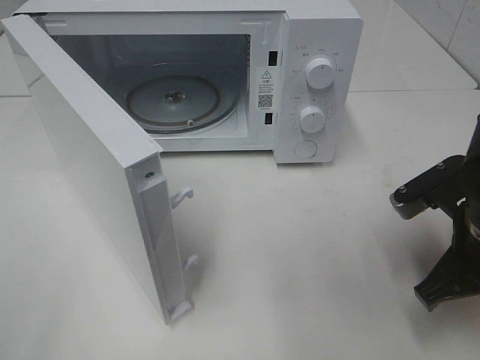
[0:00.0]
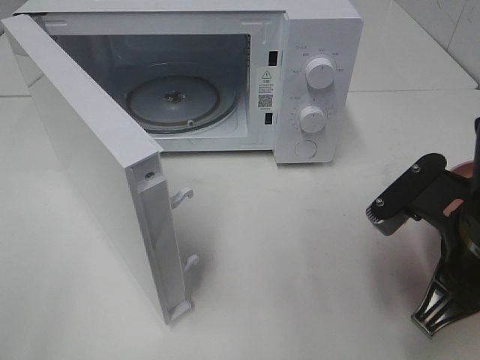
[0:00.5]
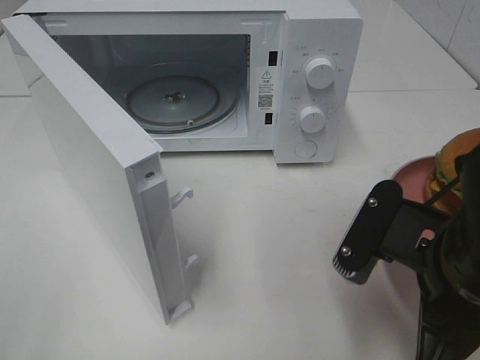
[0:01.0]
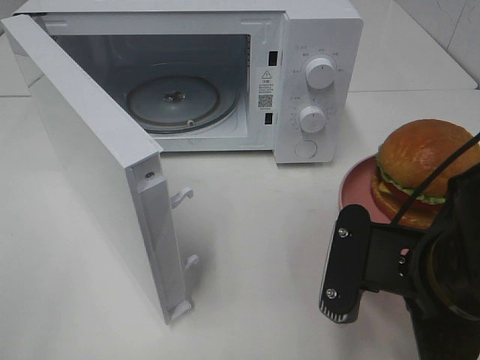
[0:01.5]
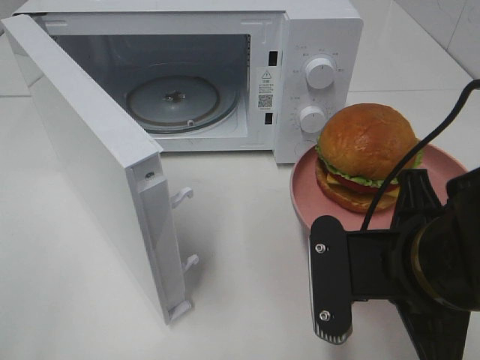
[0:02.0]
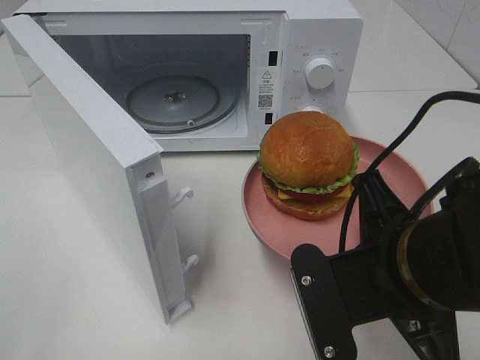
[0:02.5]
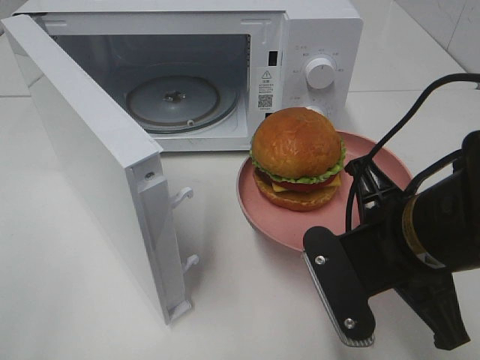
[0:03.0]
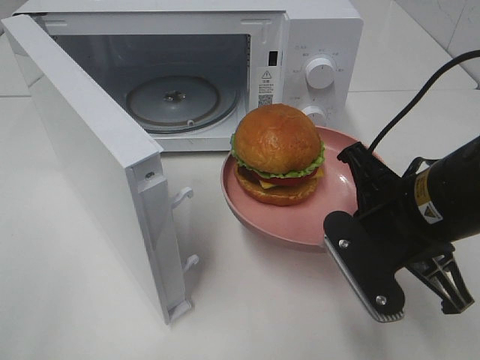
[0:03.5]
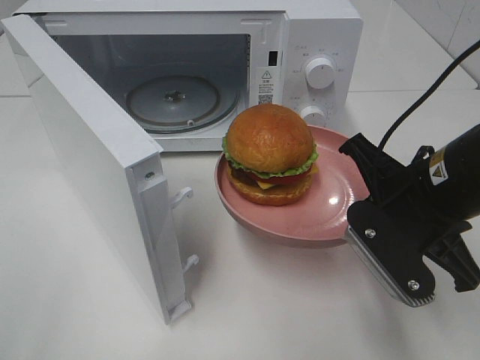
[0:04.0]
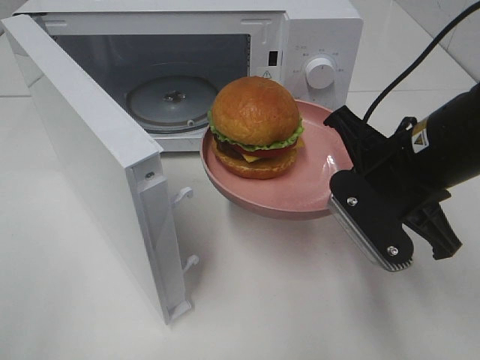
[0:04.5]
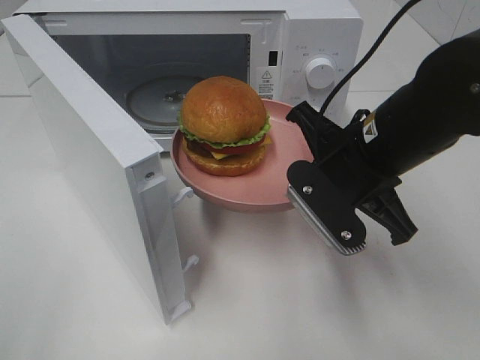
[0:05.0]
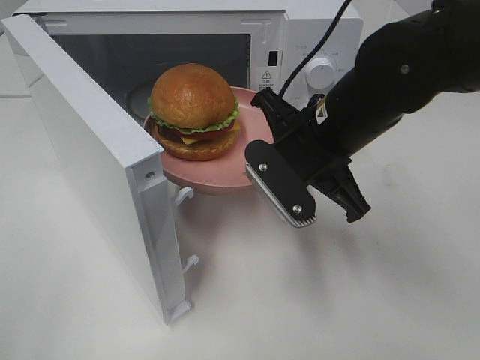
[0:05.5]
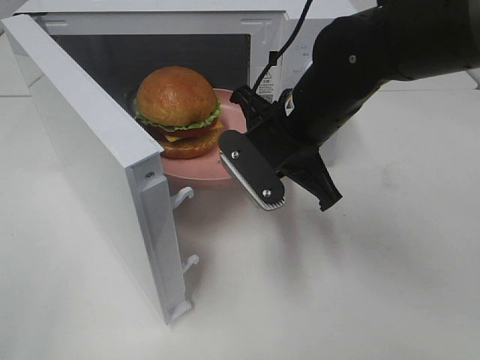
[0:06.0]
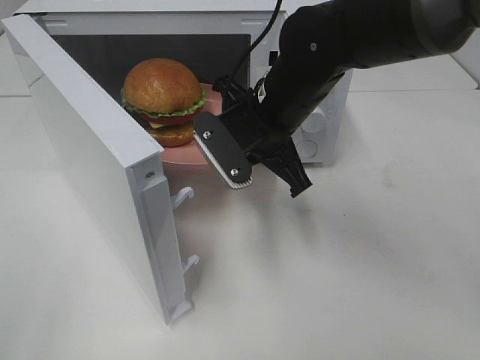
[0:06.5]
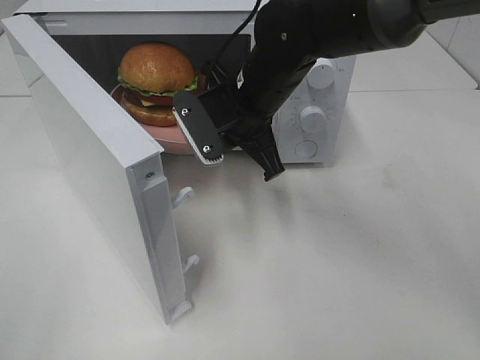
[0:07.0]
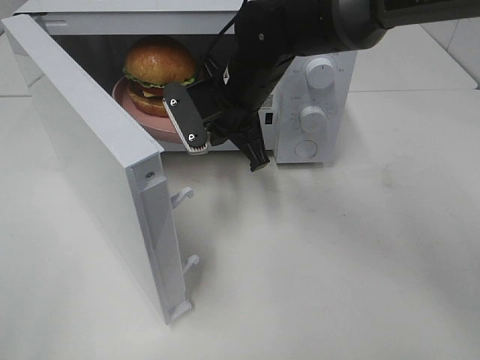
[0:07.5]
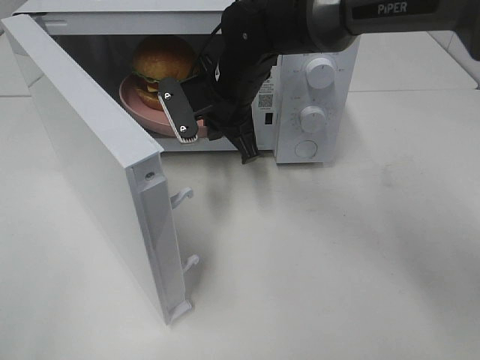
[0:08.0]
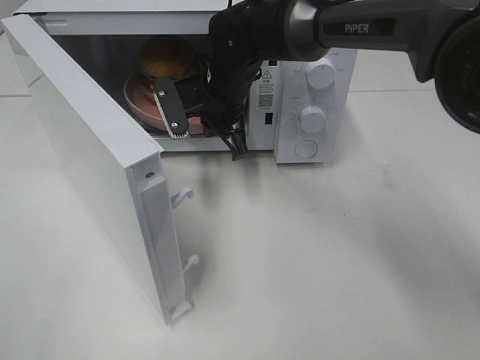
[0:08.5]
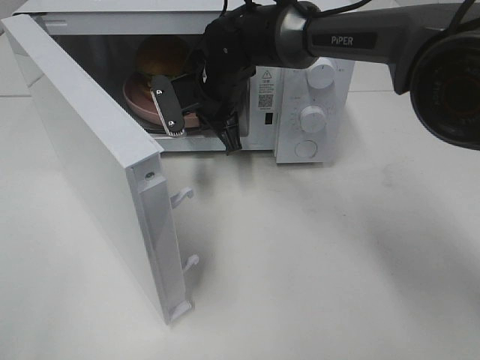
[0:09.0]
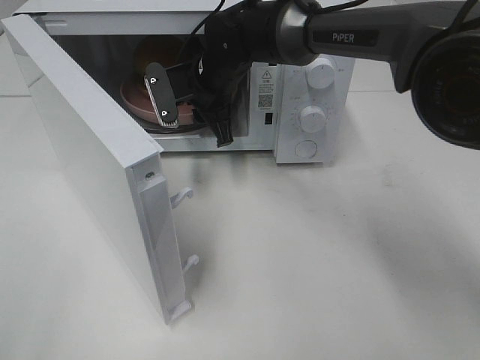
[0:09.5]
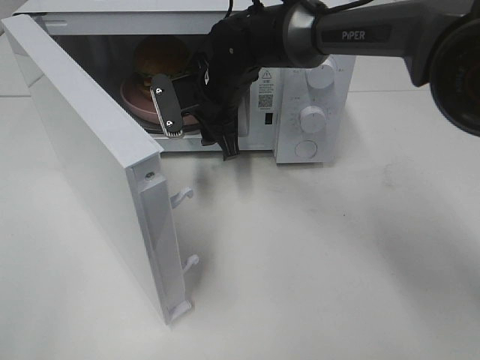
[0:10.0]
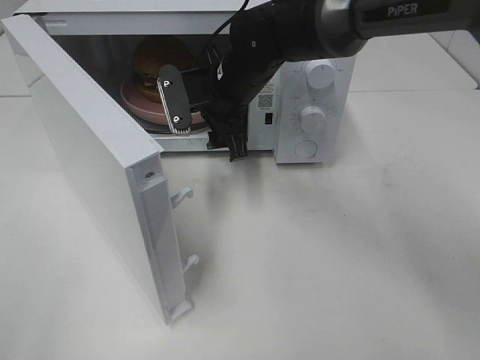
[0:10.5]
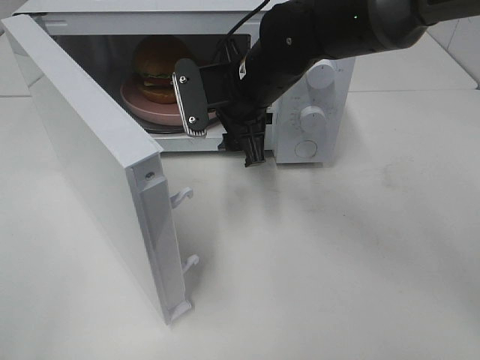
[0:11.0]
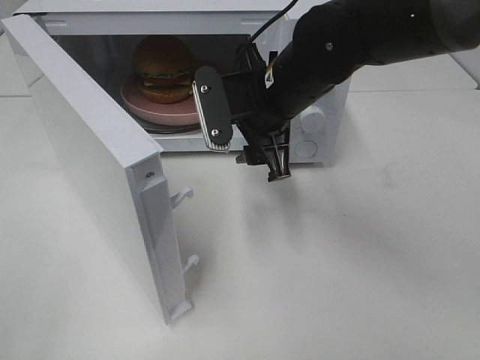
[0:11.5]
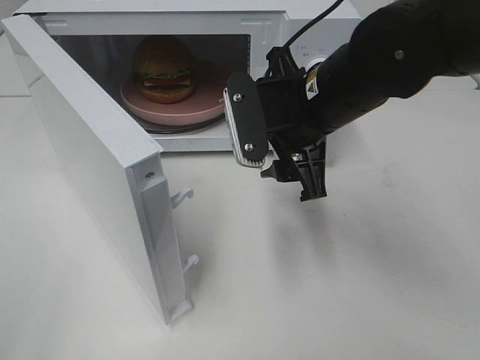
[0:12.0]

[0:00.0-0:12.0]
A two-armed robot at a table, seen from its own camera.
Task of the whole recording: Heat the burger.
Step, 0.0 to 10.0 s: Right hand: place the plate in the microwave.
0.0 to 2.0 s: The right gripper heads to the left and backward, covering about 10 cm.
2.0 to 4.0 s: The right gripper shifts approximately 10 cm forward.
4.0 to 6.0 s: The right gripper heads to the left and forward, covering some 15 cm.
6.0 to 8.0 s: The right gripper goes some 10 cm forward and to the left.
8.0 to 10.0 s: The right gripper opens up.
10.0 to 12.0 s: The right gripper shifts approximately 20 cm backward, to the right and upward.

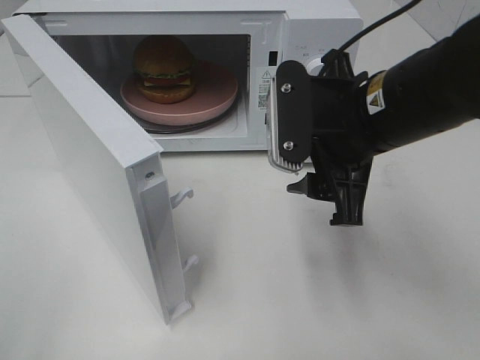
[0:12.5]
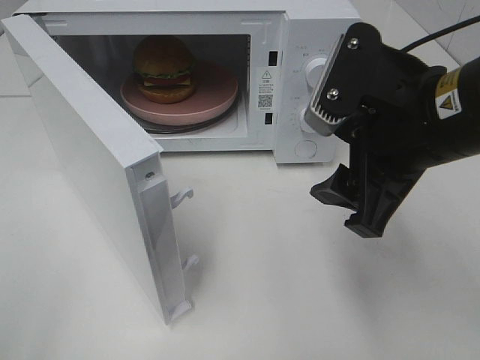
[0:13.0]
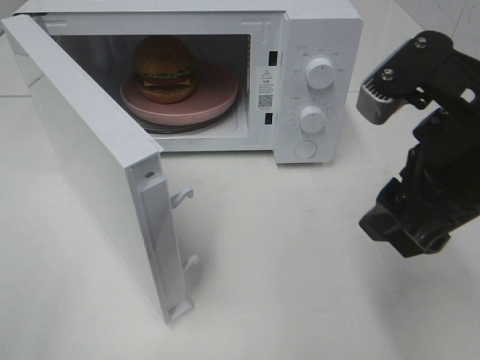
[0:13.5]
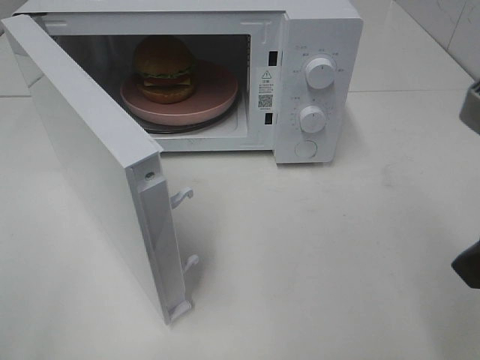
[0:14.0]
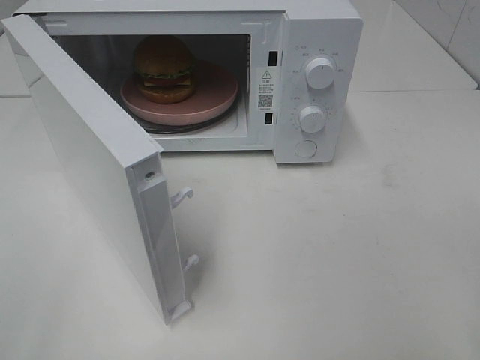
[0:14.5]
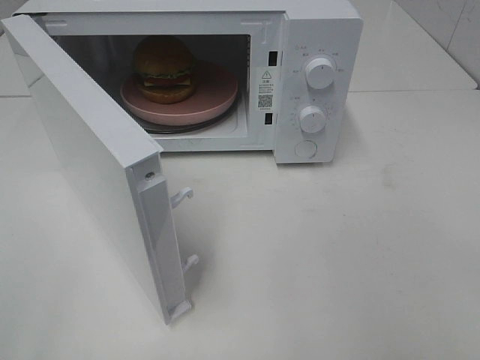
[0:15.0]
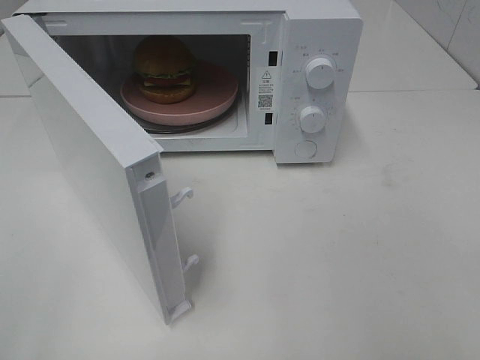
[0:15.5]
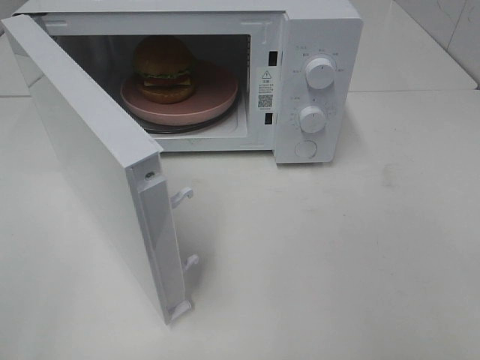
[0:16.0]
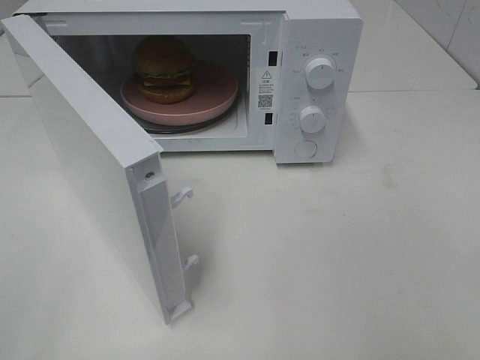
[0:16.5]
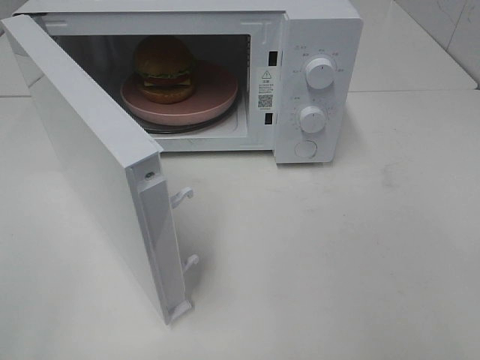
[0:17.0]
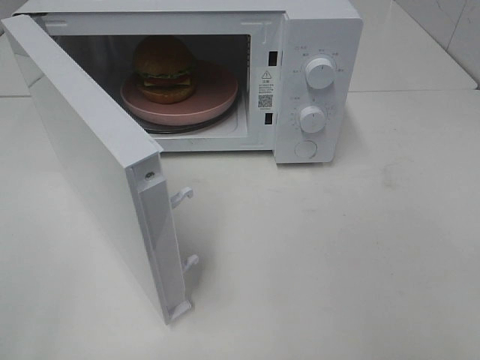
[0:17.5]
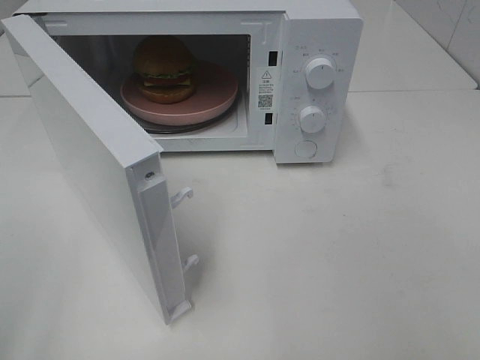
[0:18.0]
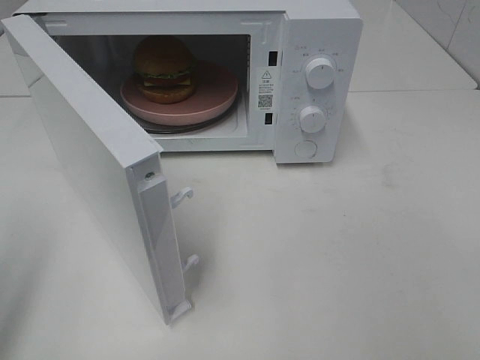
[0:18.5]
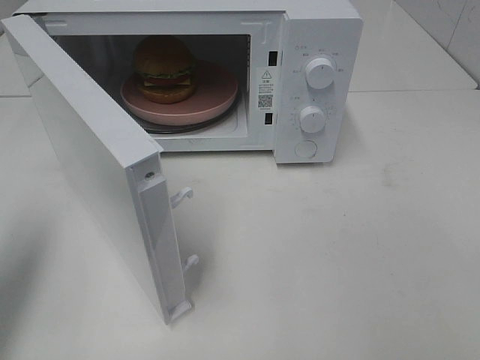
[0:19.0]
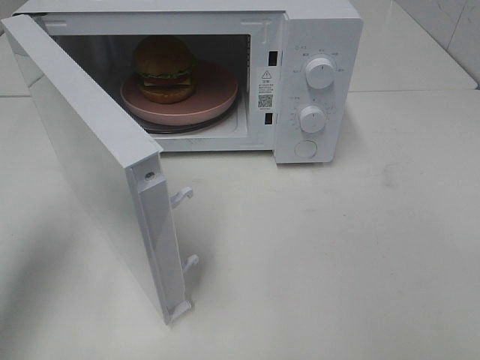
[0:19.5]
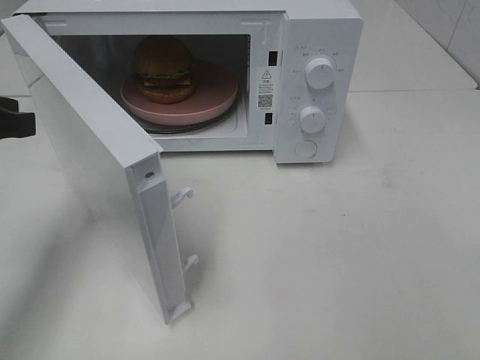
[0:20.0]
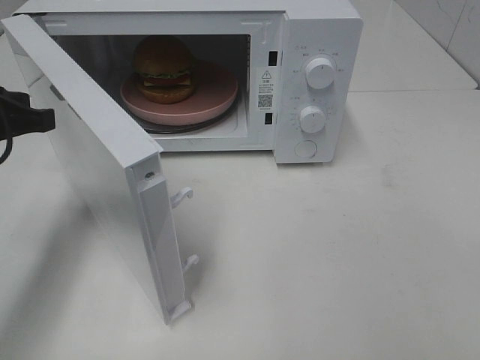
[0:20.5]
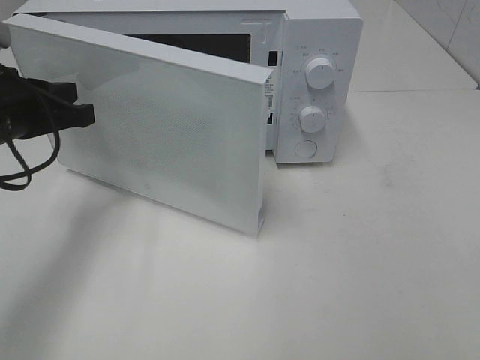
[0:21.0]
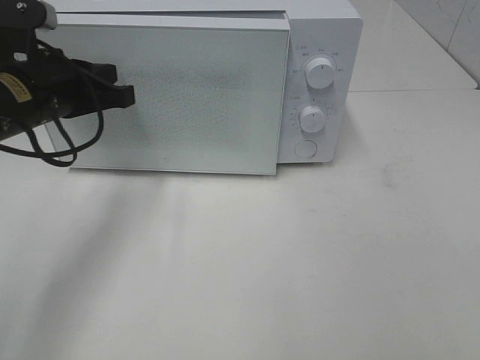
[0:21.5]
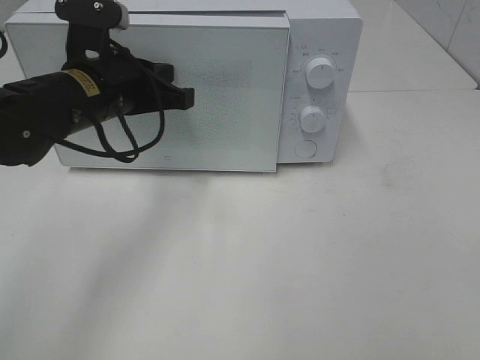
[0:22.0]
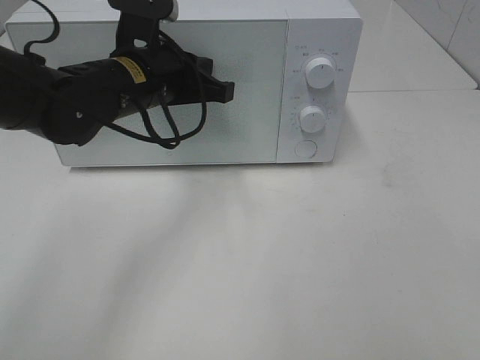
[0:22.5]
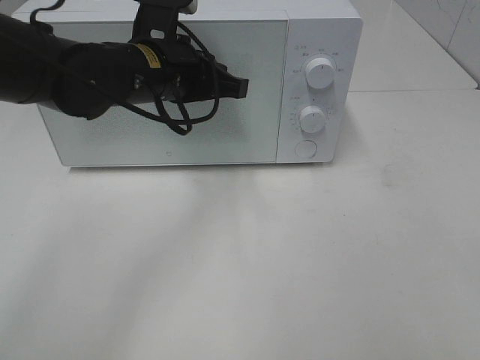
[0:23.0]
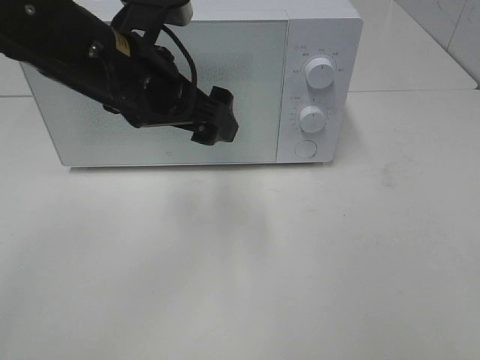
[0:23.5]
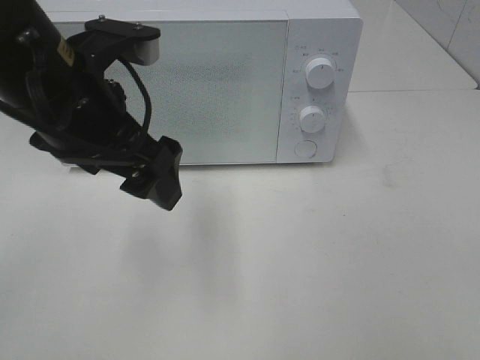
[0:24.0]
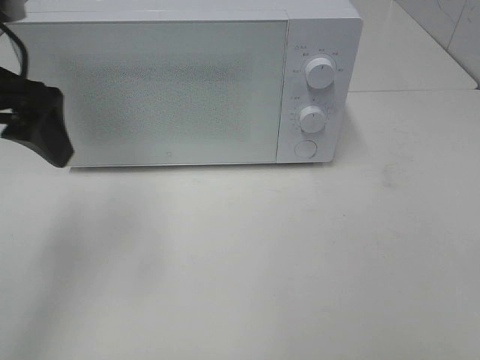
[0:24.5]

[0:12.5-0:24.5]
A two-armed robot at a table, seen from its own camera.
Task of the whole recording: Heat the burger.
Step, 12.5 to 23.0 s: Left hand: close the microwave door.
12.5 to 14.5 s: The right gripper is displaced backward and to the right by about 20 cm.
16.5 to 18.5 s: The left gripper is displaced forward by about 10 cm, and closes up.
18.5 to 20.5 s: The left gripper goes roughly 20 cm forward, downward and to the right, and closes.
20.5 to 22.5 s: The left gripper shifts roughly 20 cm to the right and forward.
22.5 to 24.5 s: The left gripper is displaced to the left, upward and backward by approximately 20 cm, and opens.

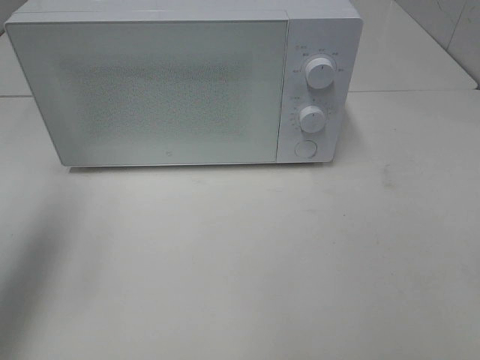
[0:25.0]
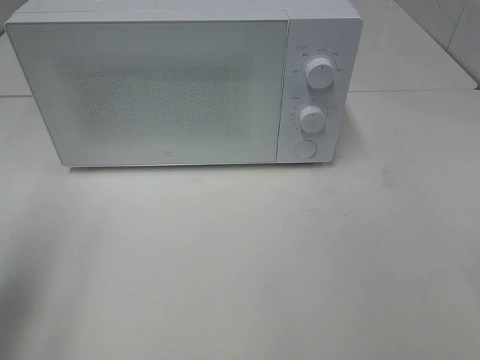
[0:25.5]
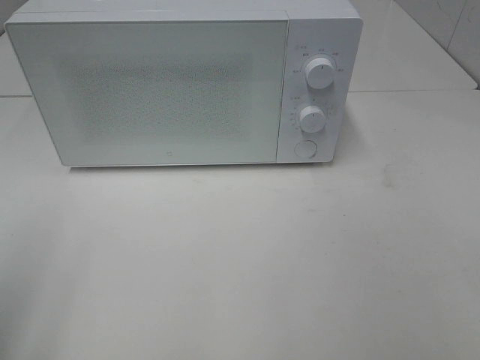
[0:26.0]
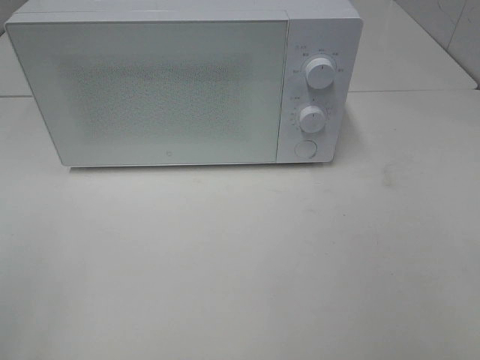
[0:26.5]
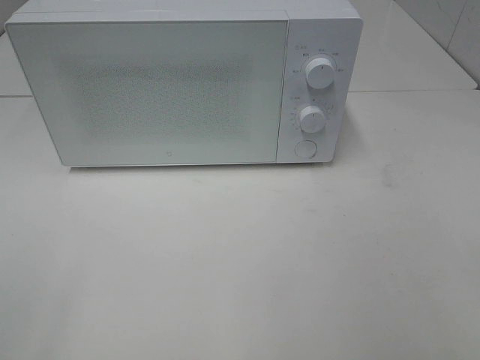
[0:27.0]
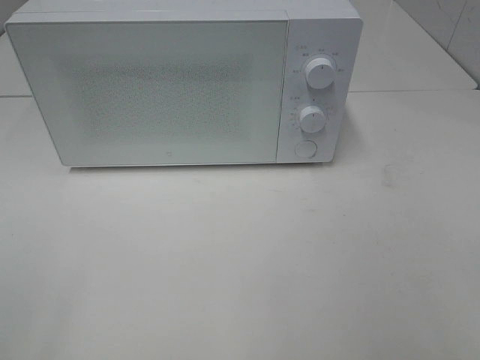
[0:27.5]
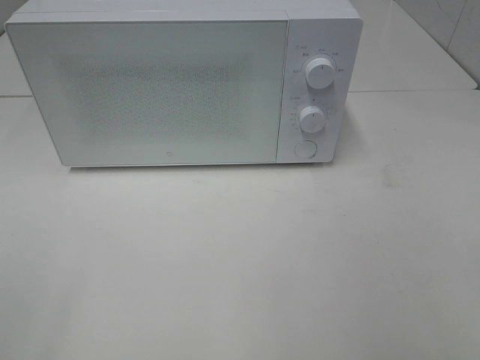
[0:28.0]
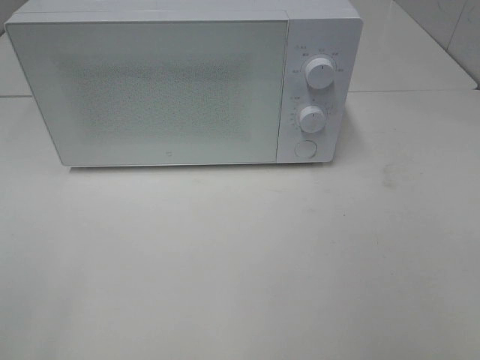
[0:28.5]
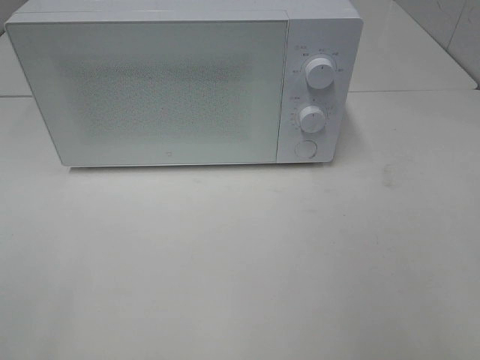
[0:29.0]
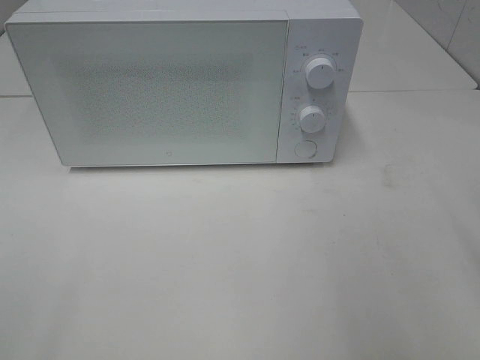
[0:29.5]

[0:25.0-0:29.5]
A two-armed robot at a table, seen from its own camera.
Task of the whole recording: Heat the burger.
25.0 to 27.0 s: The left gripper travels backward by approximately 25 cm.
